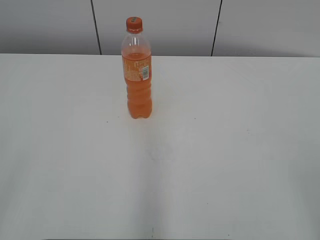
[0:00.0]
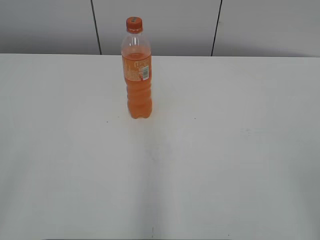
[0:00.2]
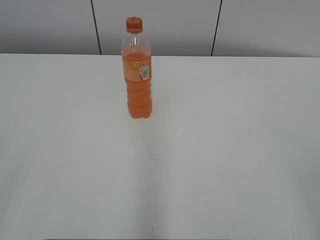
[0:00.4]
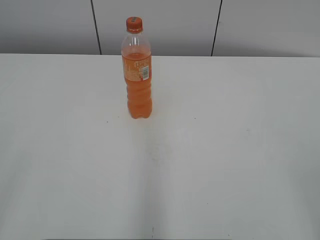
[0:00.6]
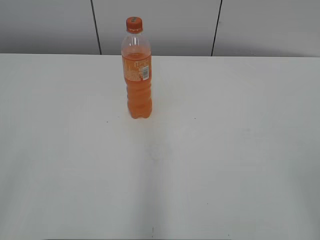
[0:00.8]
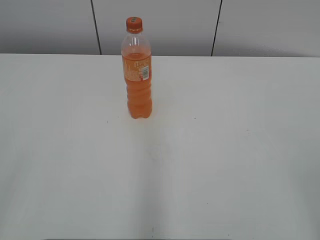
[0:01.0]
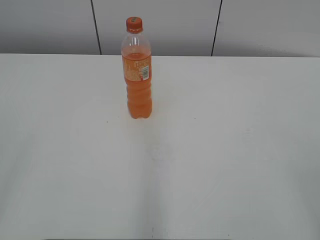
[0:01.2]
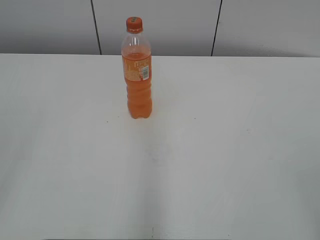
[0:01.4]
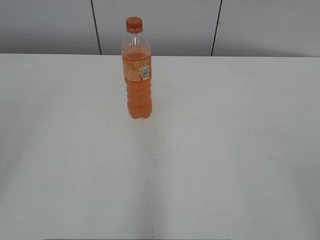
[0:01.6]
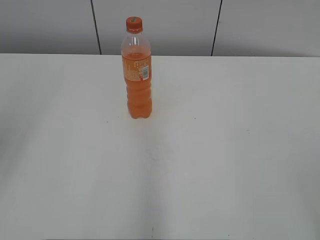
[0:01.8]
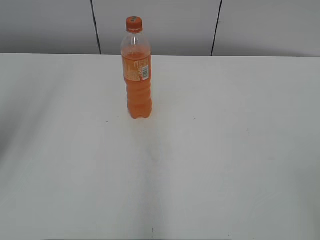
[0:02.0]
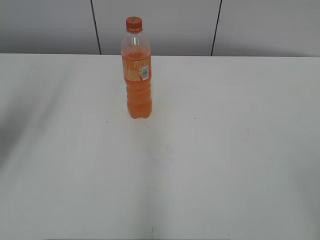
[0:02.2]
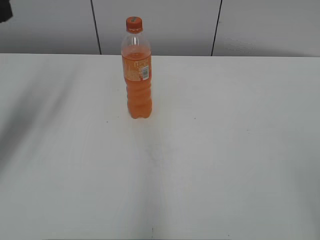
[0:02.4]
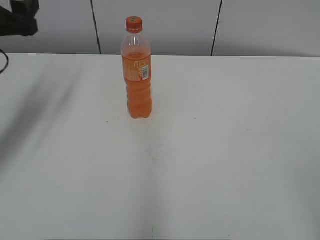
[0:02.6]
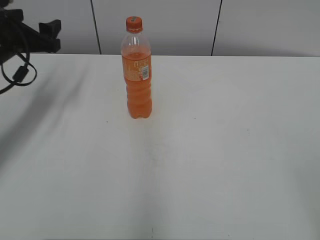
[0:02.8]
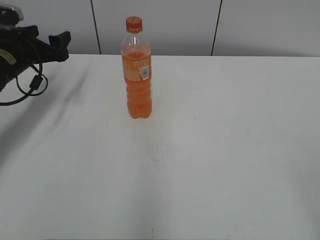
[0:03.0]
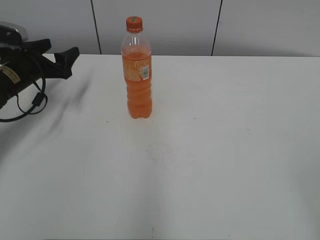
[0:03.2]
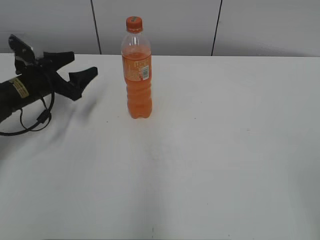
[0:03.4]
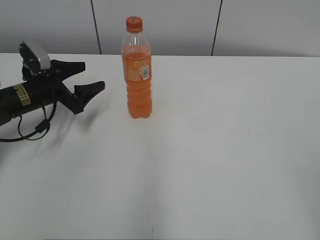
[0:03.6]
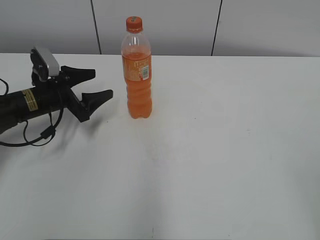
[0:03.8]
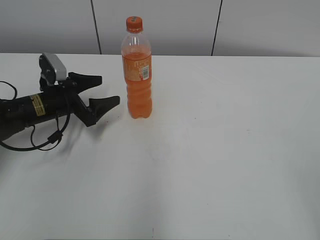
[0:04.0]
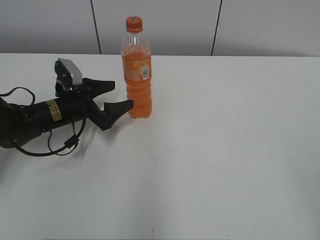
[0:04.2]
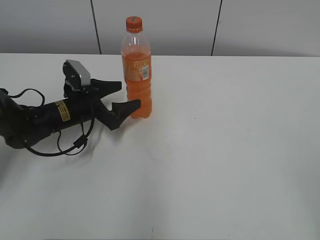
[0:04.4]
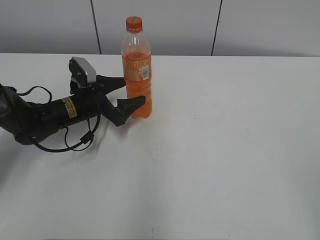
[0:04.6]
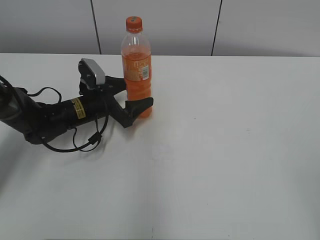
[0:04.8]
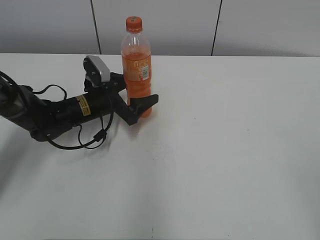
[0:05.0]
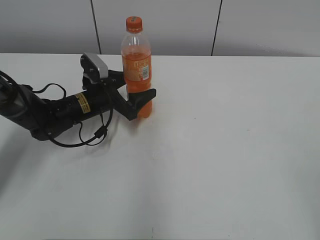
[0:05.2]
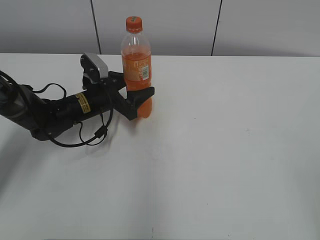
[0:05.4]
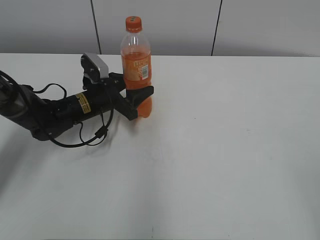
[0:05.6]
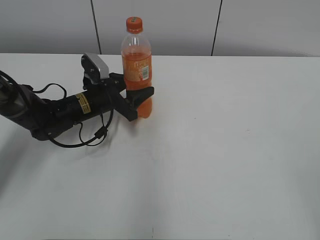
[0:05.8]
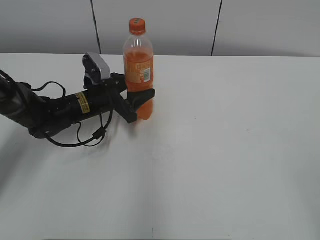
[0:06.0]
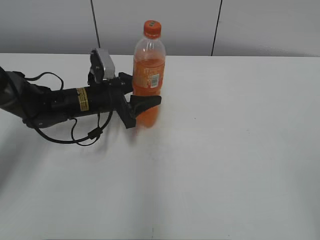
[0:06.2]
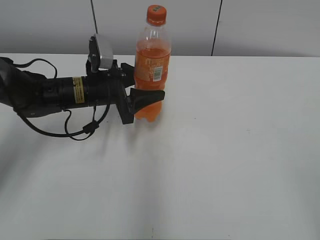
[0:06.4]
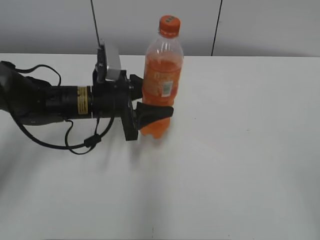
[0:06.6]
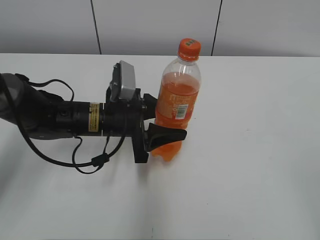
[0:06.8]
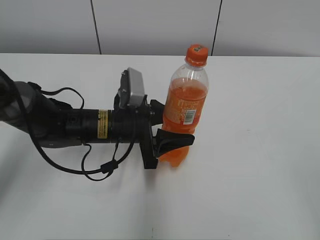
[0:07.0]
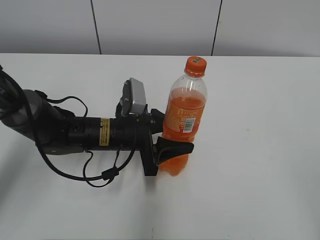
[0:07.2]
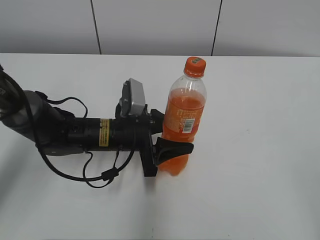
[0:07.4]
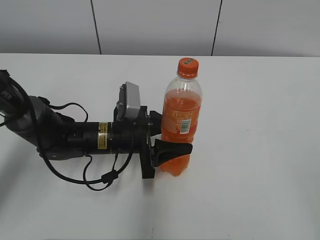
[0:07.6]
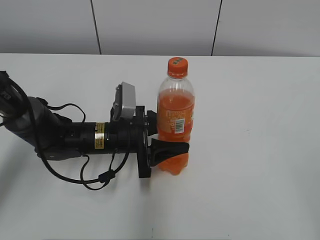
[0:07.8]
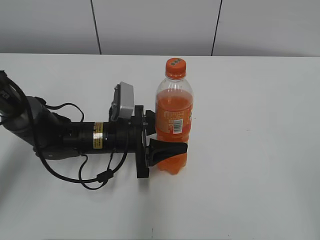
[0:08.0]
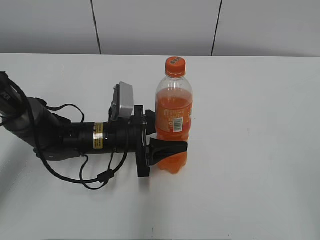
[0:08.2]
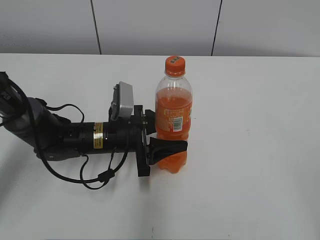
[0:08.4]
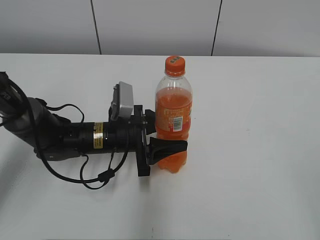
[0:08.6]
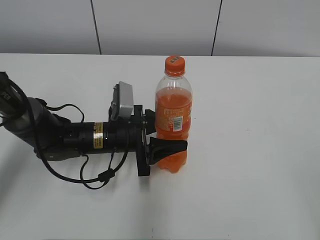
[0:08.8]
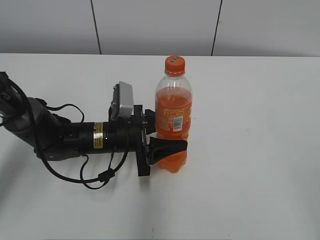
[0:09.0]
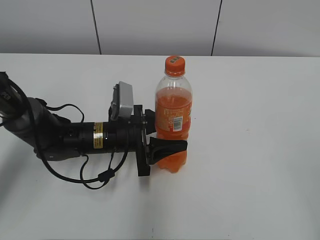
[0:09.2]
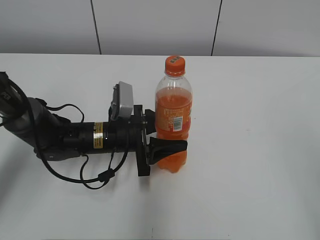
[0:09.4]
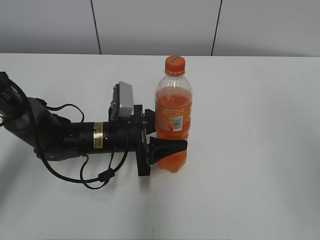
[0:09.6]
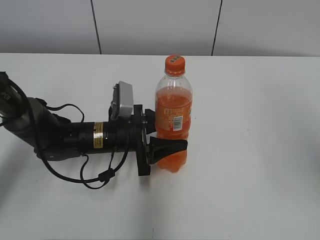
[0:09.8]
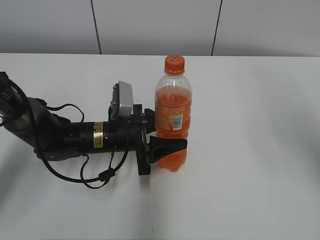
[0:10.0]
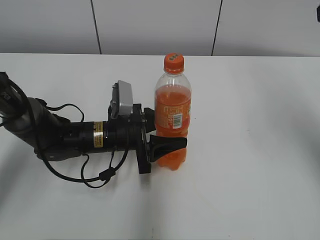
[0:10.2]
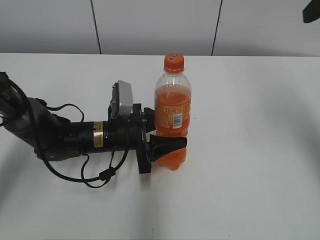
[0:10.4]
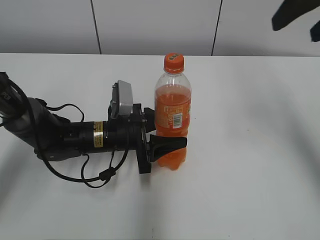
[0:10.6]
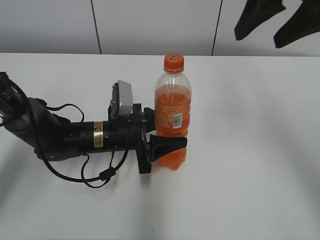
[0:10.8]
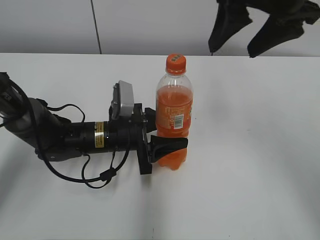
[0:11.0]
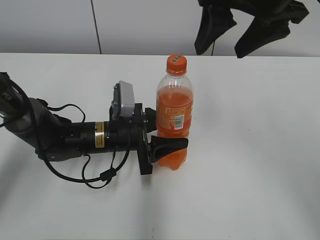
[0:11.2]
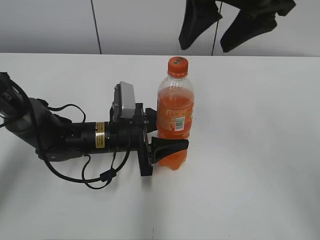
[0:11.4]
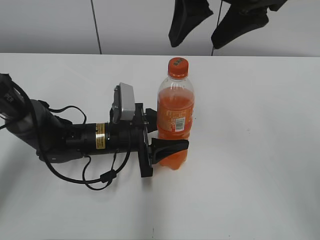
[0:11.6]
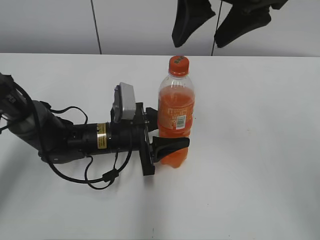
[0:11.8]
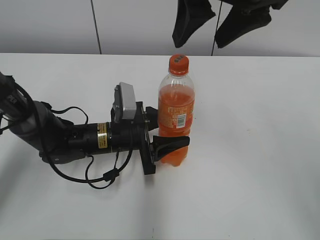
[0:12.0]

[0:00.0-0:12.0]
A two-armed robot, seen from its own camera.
Step, 0:00.0 to 0:05.6: Grab the Mirinda with the left hand.
Step, 0:05.8 to 0:09.4: Move the Mirinda from top to bottom.
0:01.6 to 0:03.0: The left gripper goes approximately 40 cm forward and downward.
0:03.0 to 0:04.4: The left gripper travels downward and to the right by about 15 cm.
0:04.4 to 0:06.0: The left gripper closes up.
0:06.0 to 0:07.6: The left gripper is displaced backward and to the right by about 10 cm.
0:07.6 to 0:09.0: Both grippers stay about where they are.
0:09.0 to 0:10.4: The right gripper goes some 30 cm forward.
0:10.4 to 0:12.0: The right gripper moves to the left, roughly 15 cm.

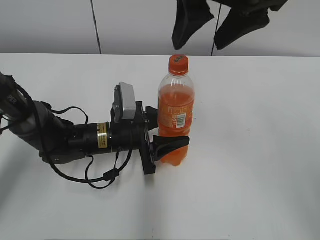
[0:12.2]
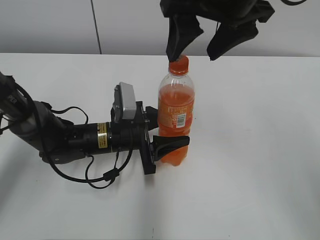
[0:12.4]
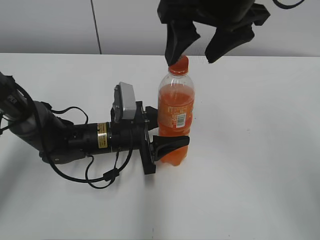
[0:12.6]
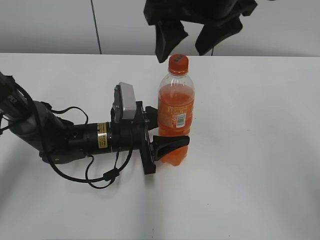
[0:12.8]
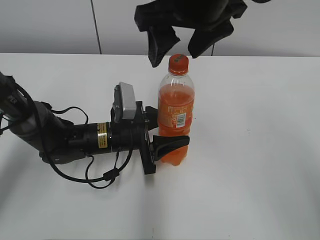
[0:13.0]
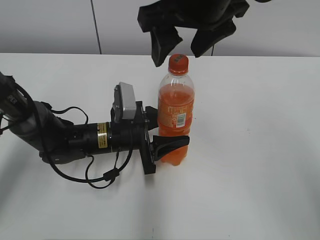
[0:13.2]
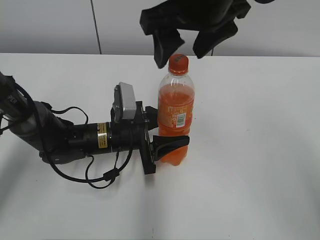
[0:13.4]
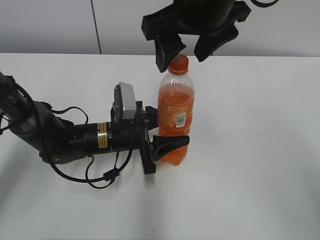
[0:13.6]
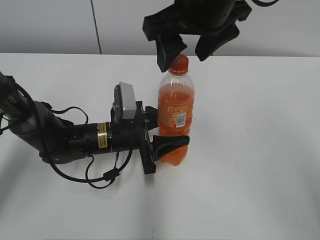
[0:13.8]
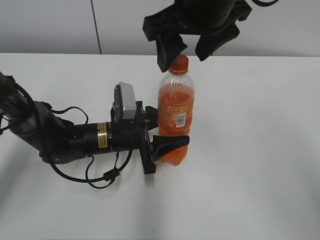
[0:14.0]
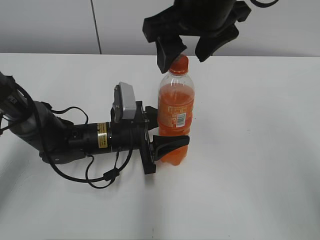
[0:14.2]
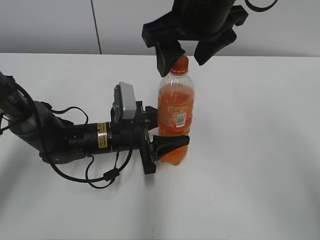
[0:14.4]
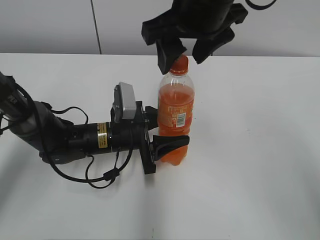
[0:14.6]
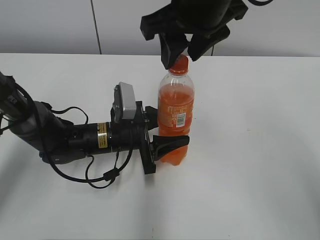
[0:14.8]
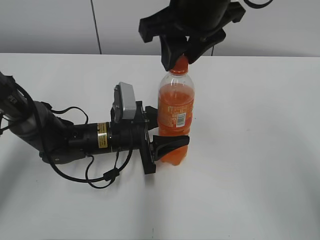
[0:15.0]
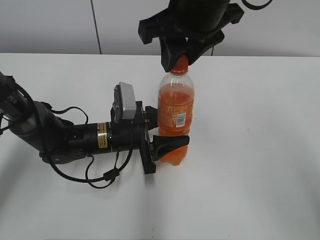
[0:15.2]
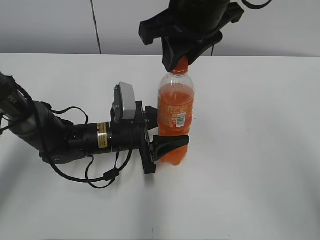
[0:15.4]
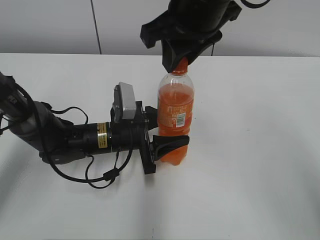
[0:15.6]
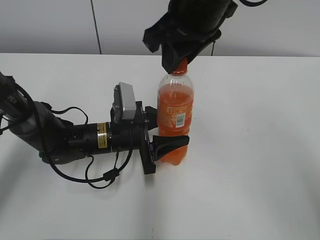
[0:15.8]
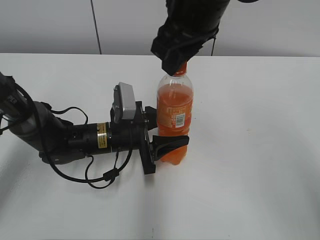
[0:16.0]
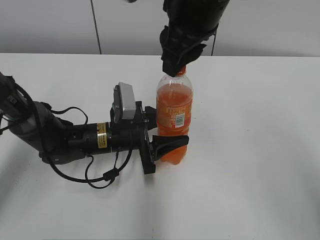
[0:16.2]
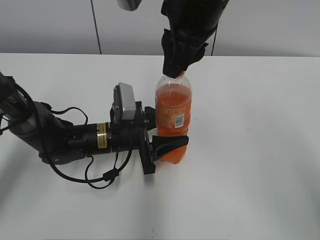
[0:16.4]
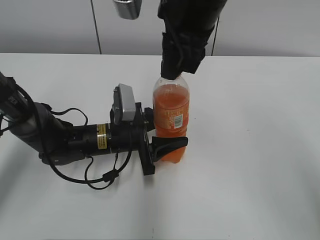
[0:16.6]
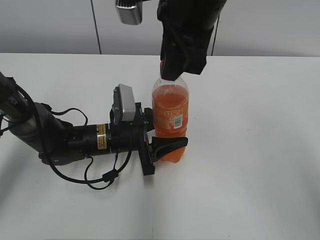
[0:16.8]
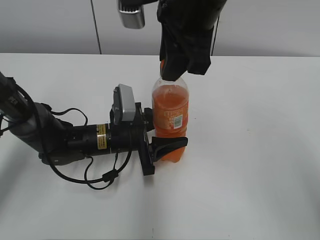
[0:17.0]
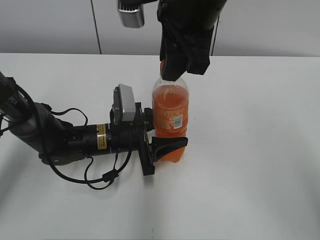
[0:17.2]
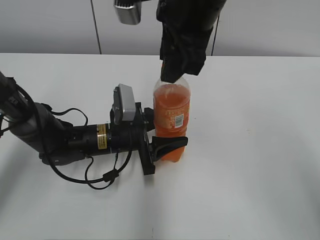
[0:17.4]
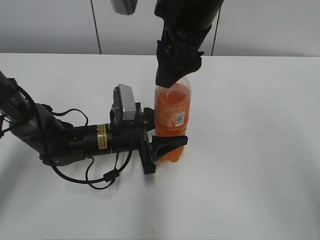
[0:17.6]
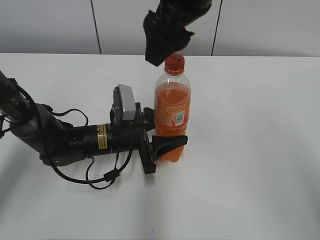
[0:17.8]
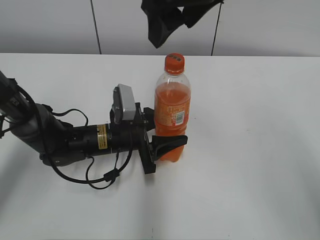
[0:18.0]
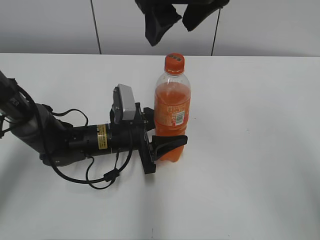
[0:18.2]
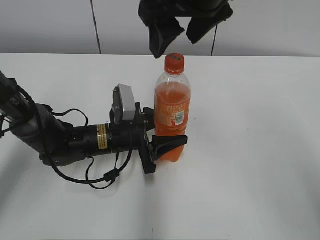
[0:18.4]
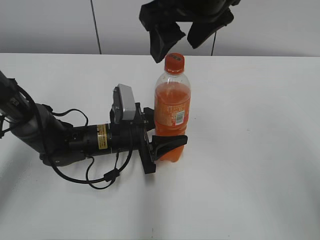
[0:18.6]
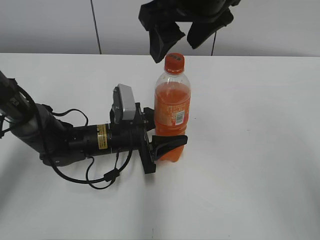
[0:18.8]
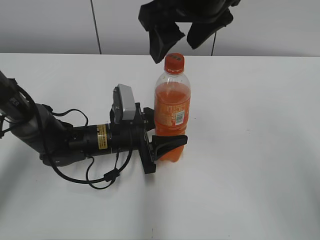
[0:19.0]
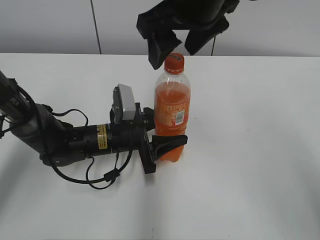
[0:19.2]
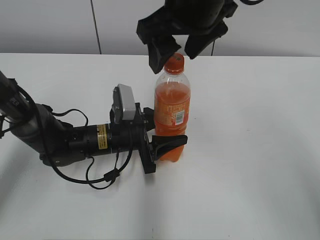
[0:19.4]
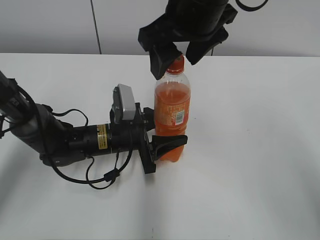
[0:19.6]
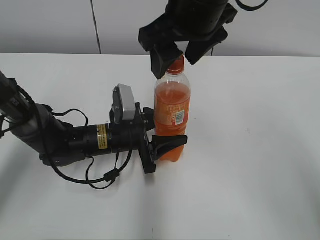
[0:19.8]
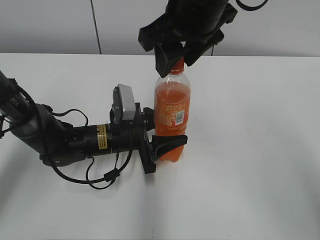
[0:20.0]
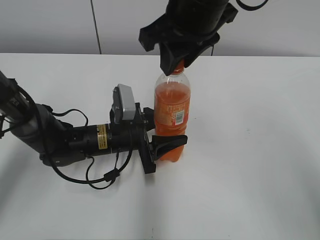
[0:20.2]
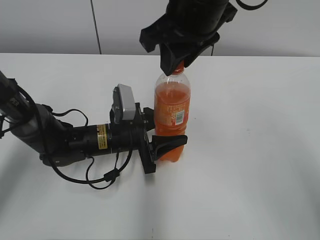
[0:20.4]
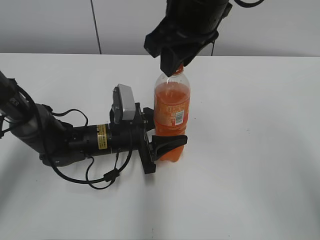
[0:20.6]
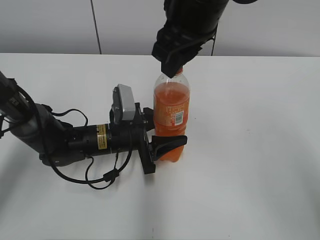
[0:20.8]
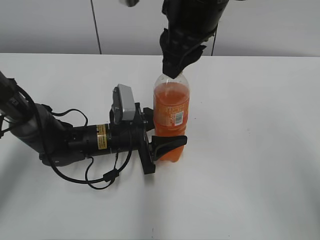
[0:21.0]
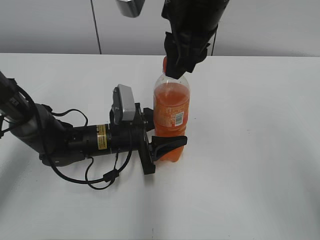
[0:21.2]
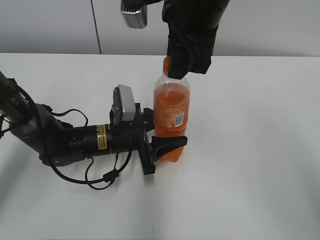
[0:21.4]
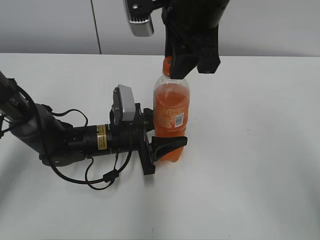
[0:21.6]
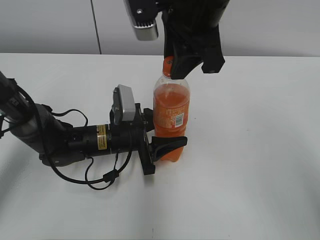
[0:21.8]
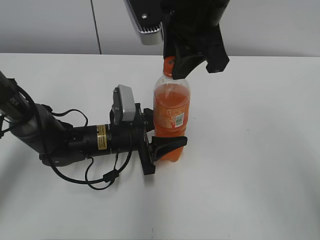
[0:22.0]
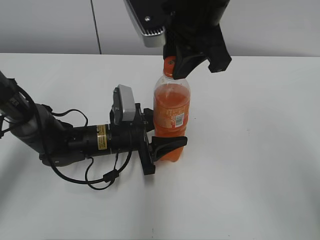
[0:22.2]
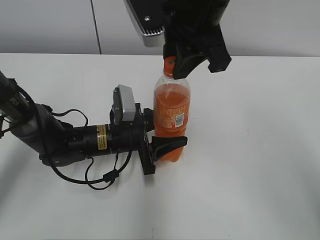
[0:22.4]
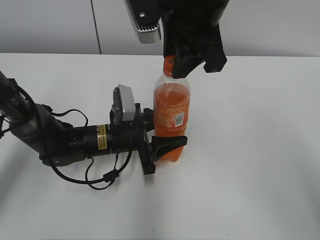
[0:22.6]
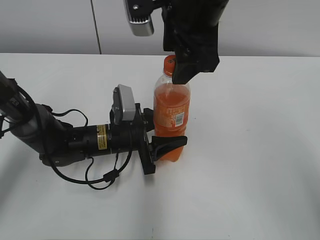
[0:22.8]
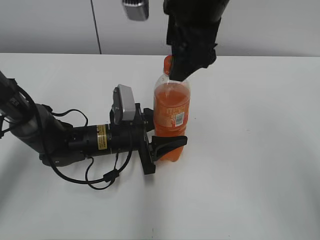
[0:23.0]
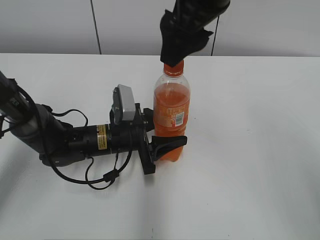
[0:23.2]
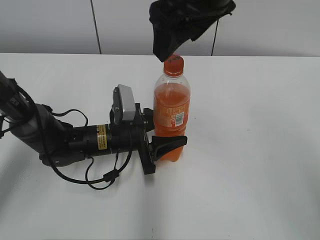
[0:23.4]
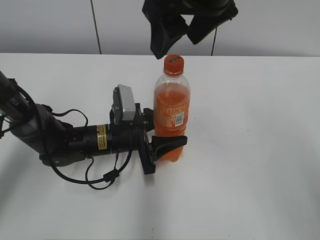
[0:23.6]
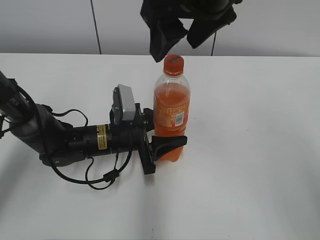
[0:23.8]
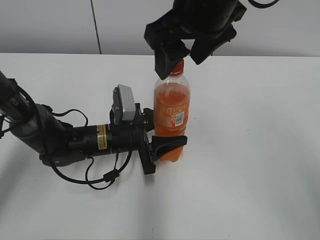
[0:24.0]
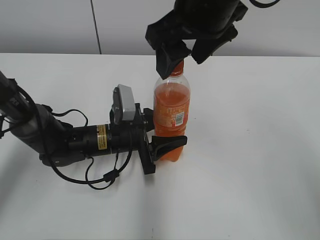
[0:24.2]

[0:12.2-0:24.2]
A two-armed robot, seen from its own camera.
0:12.2 to 0:13.8: The right gripper moves roughly 5 cm.
0:13.8 to 0:15.2: The right gripper closes its fingers.
0:16.6 to 0:18.2: The right gripper opens its fingers.
0:18.2 to 0:19.8: The grippers move only a little.
0:19.8 to 0:21.2: The right gripper closes.
0:22.6 to 0:24.2: The right gripper opens up.
